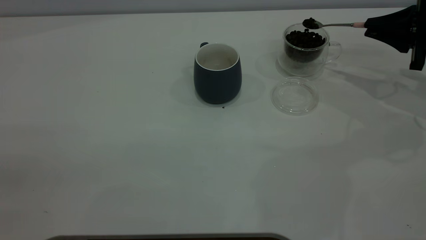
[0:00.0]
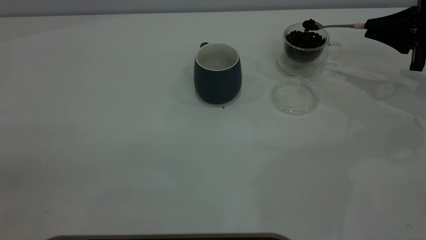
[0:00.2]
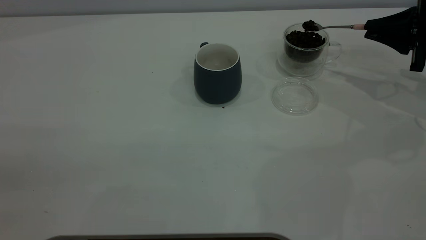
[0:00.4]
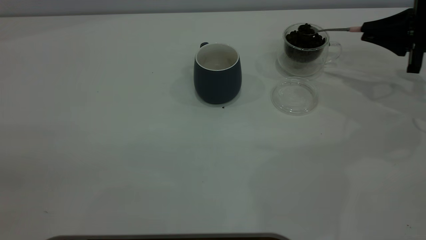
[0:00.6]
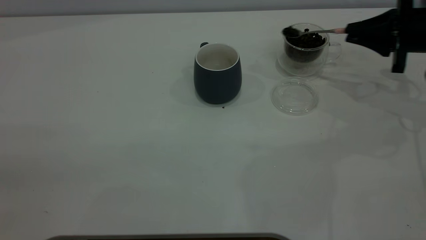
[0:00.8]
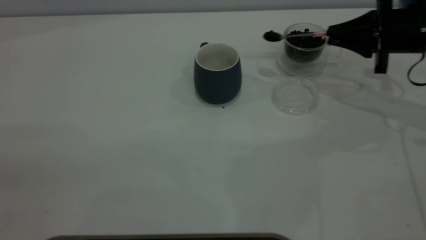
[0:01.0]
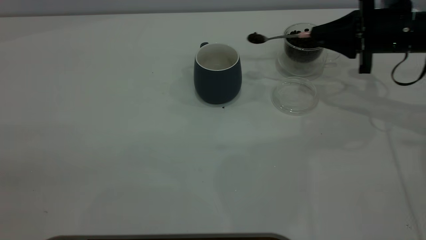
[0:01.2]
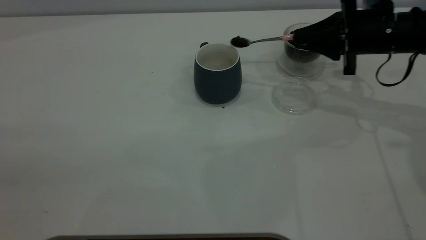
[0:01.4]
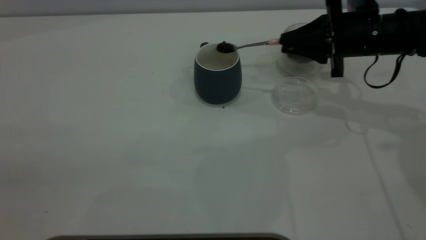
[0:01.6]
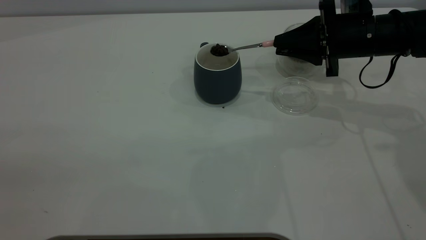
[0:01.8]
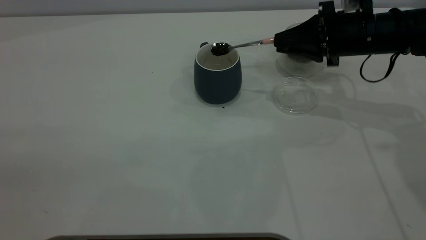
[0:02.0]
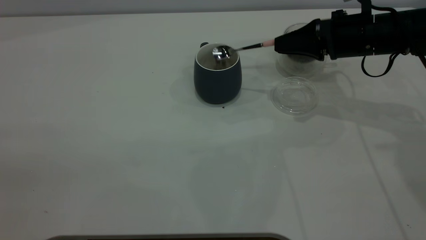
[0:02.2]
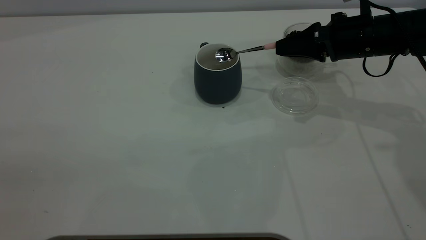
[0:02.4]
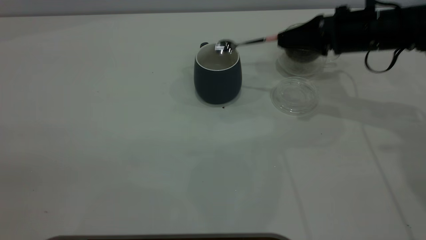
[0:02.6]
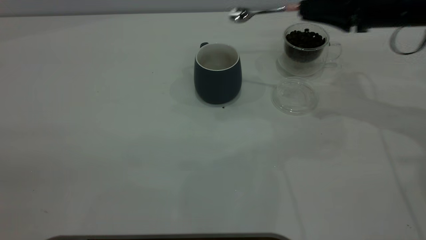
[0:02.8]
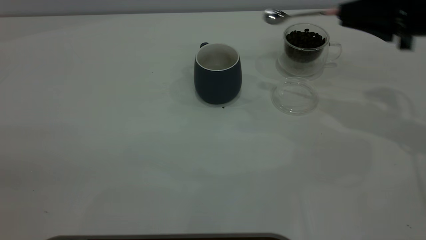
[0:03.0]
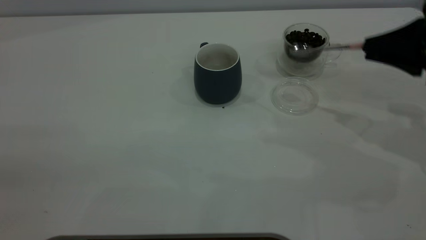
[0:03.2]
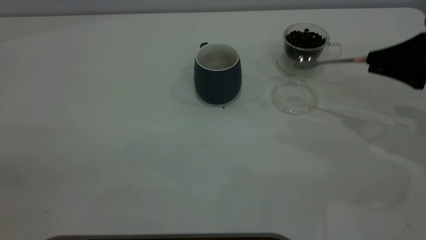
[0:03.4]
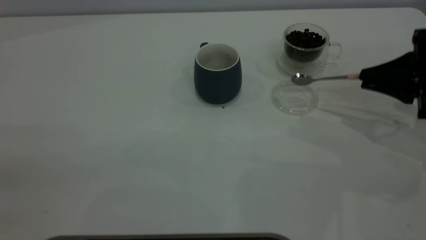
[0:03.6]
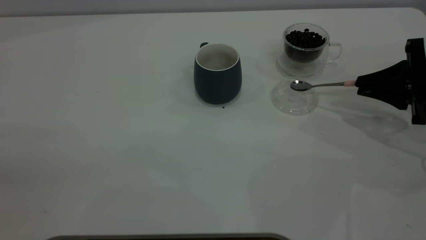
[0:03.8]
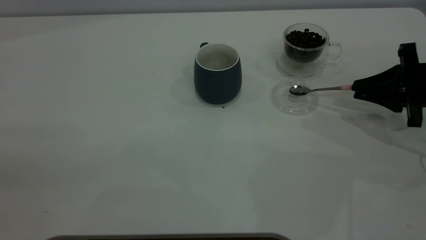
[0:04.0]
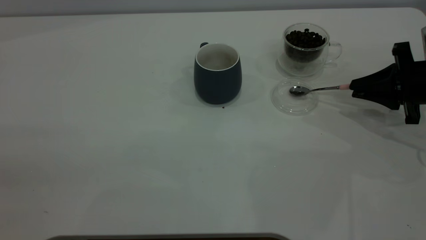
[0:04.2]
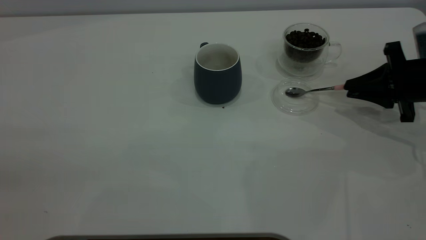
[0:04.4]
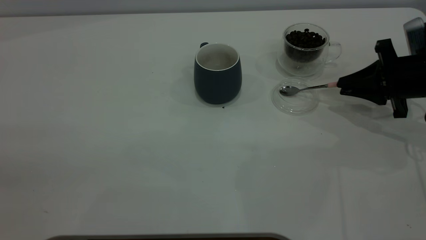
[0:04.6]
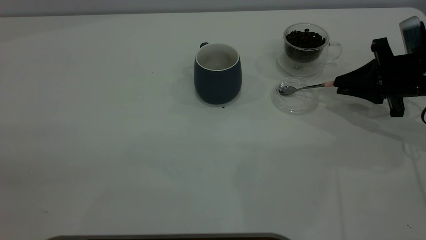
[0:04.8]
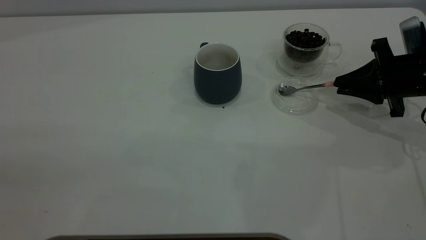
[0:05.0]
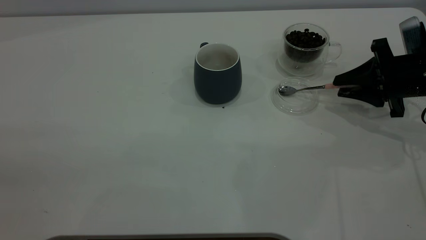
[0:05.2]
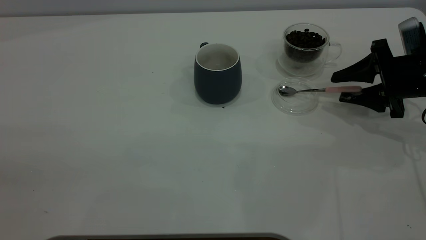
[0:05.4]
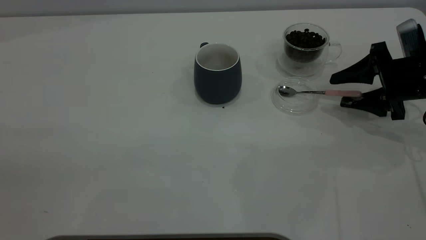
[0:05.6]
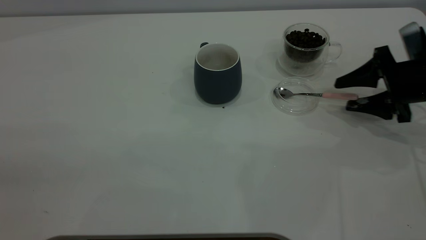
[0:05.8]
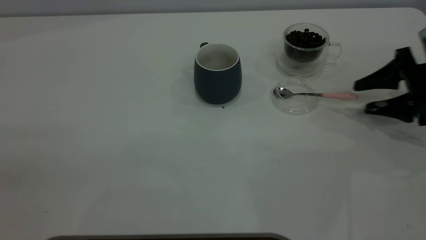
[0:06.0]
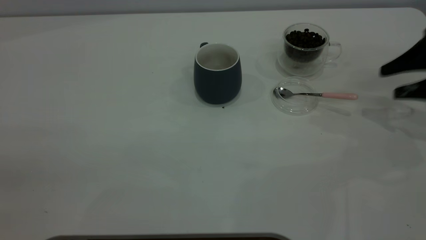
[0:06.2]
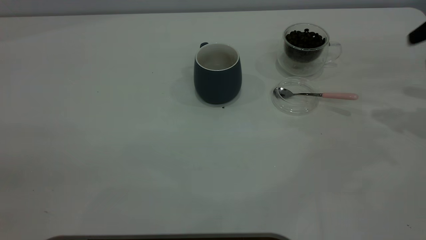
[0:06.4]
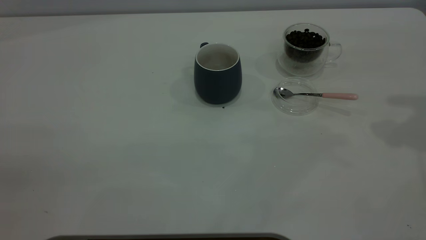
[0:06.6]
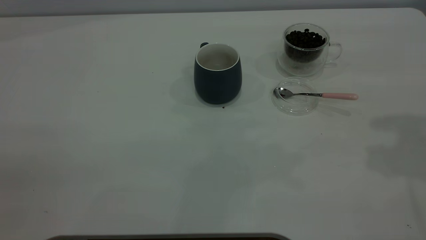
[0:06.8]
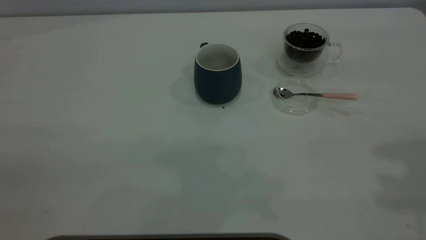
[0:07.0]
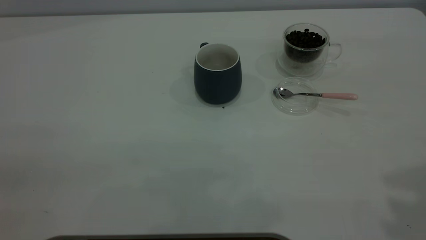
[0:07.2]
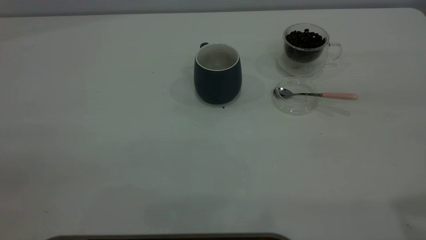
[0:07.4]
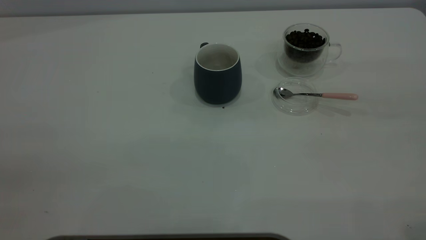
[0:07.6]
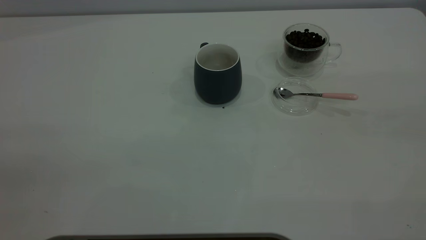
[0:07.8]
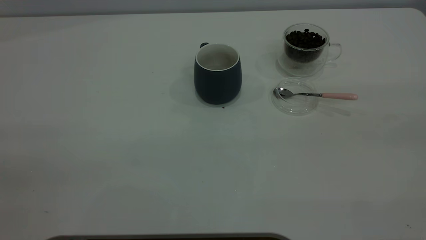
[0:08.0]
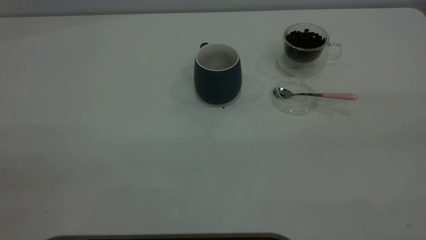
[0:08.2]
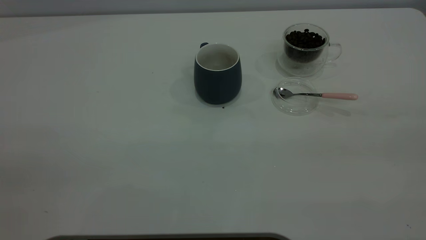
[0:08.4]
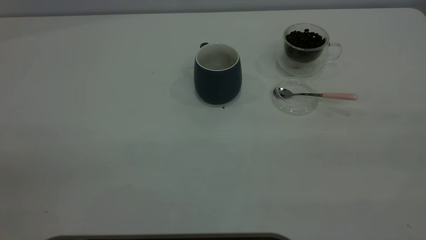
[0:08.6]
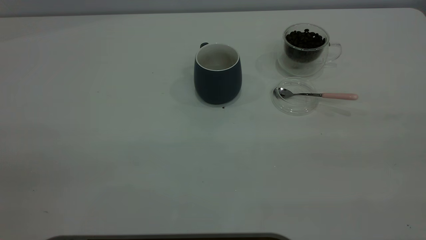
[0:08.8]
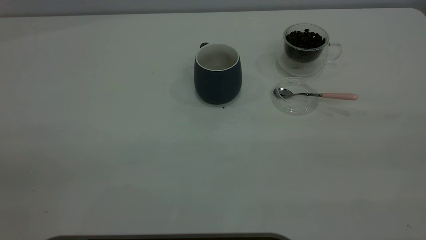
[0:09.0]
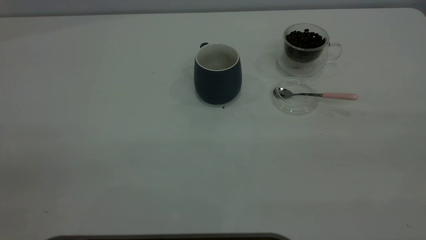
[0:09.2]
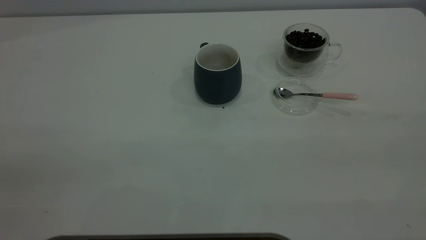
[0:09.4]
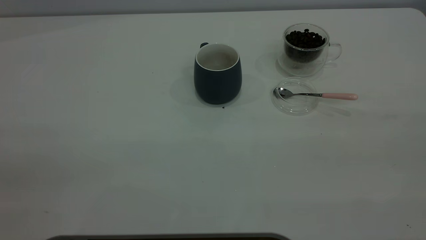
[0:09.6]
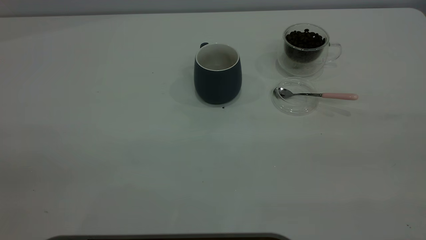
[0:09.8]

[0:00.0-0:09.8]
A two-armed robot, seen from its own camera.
Task of the whole recording: the left gripper place the grey cup in the center of the table, the right gripper take the pink spoon from the cup lid and scoop out the coffee beans from the coffee cup and put them into the grey cup, the right gripper put the spoon back into the cup lid.
Step, 0:00.0 to 0:02.6: Scoop a spoonful of beans into the cup.
Step, 0:02.8 to 0:06.0: Place the spoon back in its original place.
0:00.0 to 0:01.4: The right gripper moves to the left, about 10 cm.
0:01.4 to 0:02.8: The right gripper travels upward by roughly 5 cm.
0:02.8 to 0:04.2: The right gripper heads downward and to the right, covering roughly 10 cm.
0:04.2 to 0:05.6: The right gripper opens up.
0:05.6 to 0:07.0: The right gripper heads upward and backward, covering about 35 cm.
